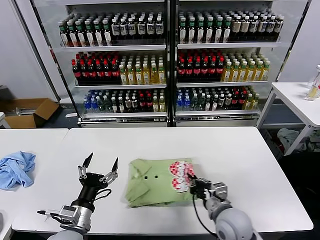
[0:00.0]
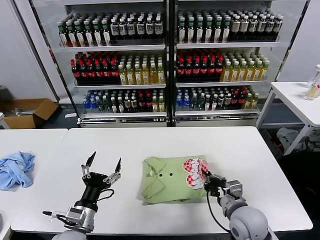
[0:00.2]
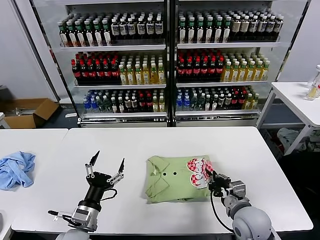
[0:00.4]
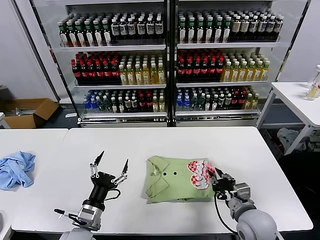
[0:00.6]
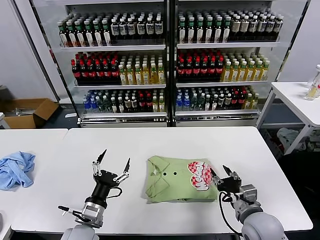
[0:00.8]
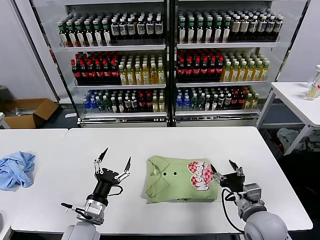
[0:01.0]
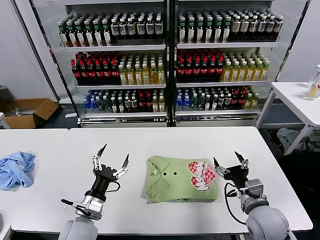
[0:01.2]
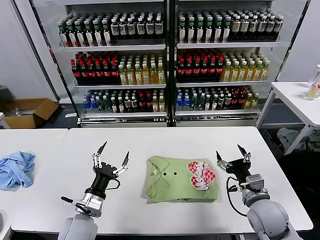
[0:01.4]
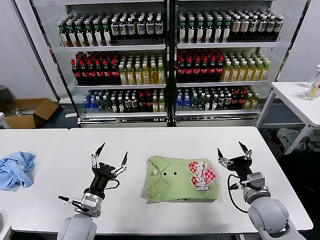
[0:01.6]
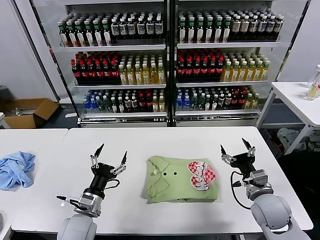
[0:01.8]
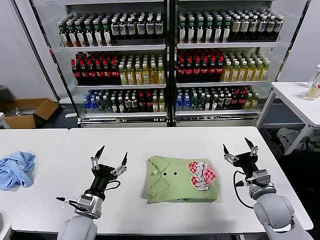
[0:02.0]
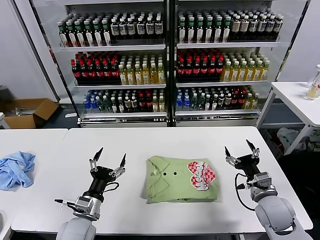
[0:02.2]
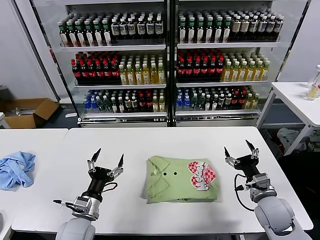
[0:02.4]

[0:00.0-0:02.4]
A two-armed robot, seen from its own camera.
Task of the whole recording: fold and organize the clothes.
0:00.0 to 0:01.2: The left gripper ends up roughly 5 cm from where it was. Meanwhile the right gripper heads to the right, covering roughly 10 cm, and opens.
0:01.2 to 0:02.4: The right gripper moves about 5 cm.

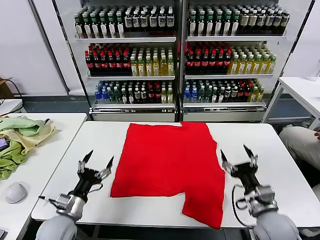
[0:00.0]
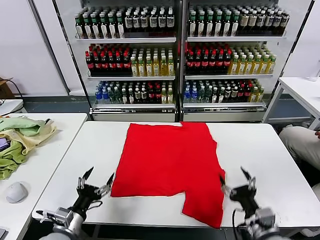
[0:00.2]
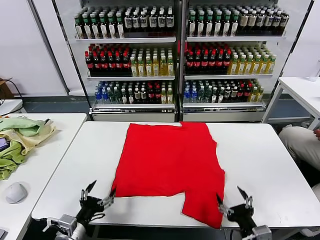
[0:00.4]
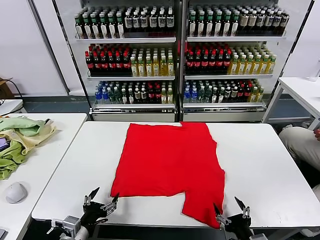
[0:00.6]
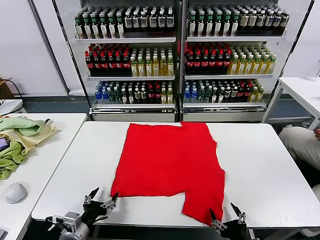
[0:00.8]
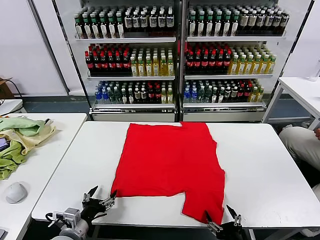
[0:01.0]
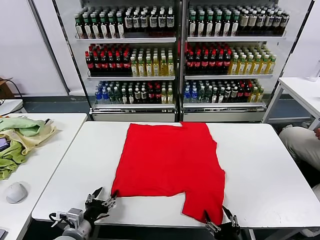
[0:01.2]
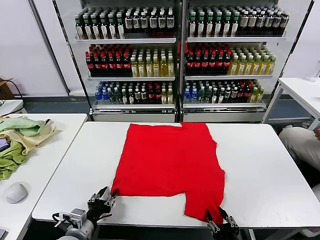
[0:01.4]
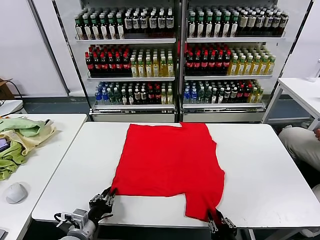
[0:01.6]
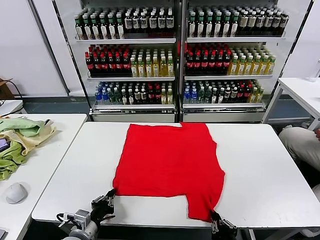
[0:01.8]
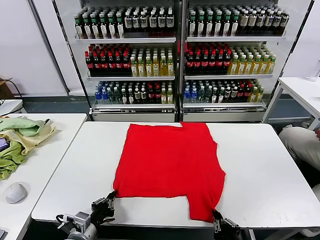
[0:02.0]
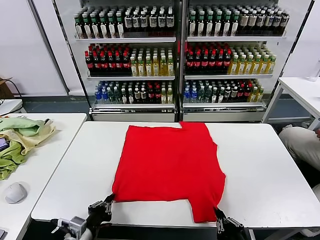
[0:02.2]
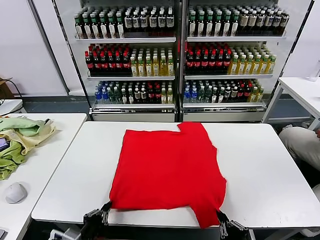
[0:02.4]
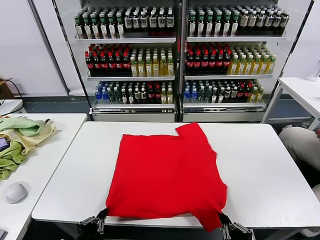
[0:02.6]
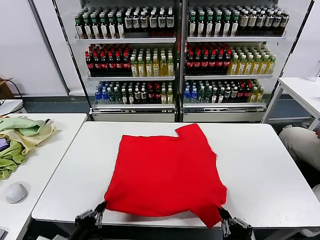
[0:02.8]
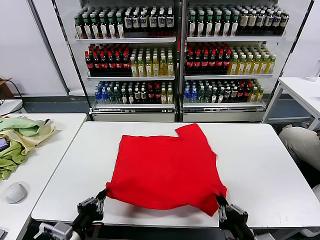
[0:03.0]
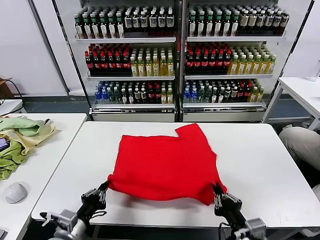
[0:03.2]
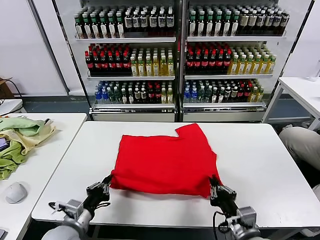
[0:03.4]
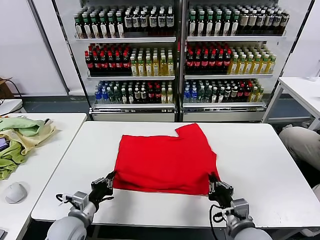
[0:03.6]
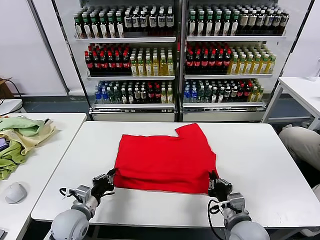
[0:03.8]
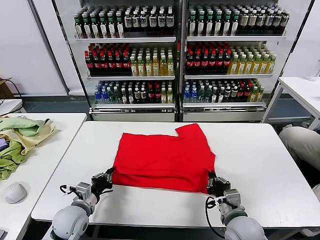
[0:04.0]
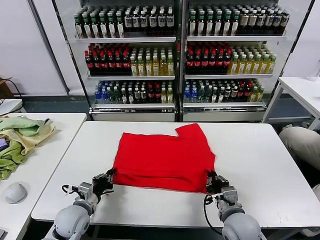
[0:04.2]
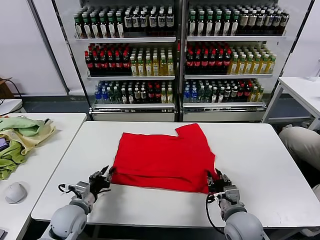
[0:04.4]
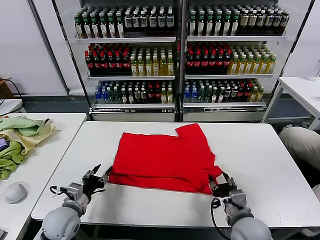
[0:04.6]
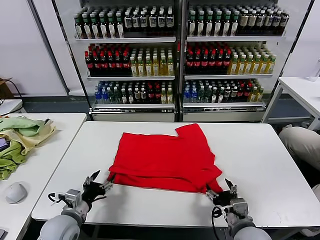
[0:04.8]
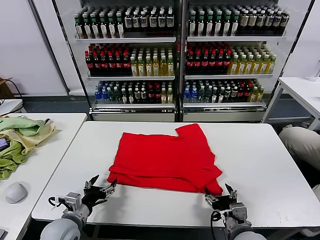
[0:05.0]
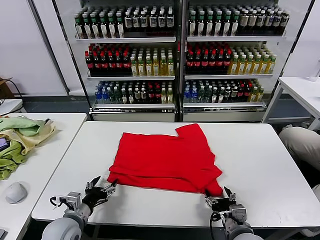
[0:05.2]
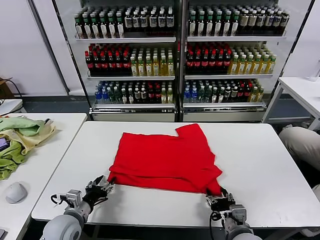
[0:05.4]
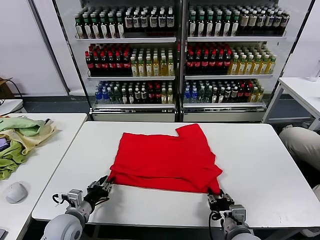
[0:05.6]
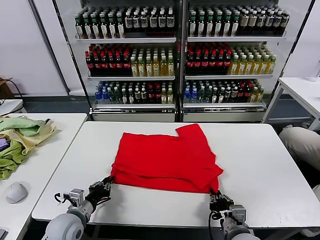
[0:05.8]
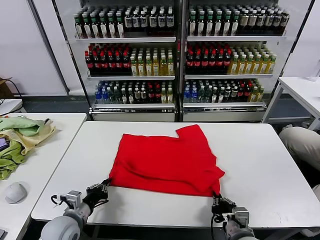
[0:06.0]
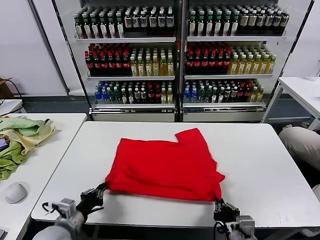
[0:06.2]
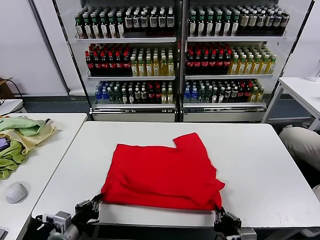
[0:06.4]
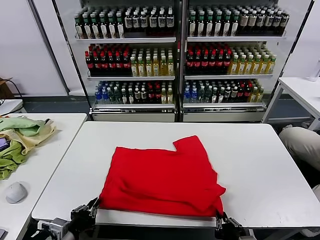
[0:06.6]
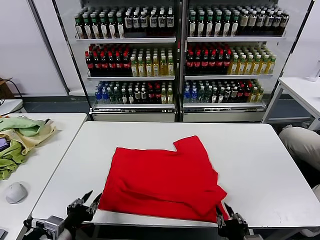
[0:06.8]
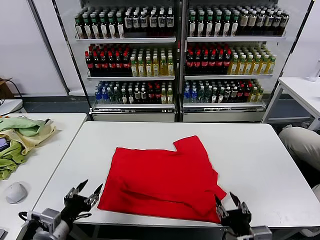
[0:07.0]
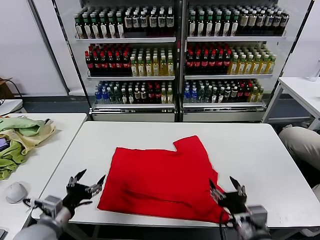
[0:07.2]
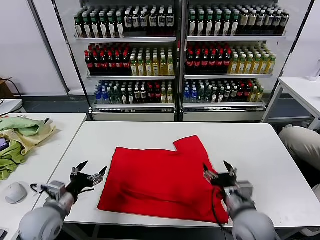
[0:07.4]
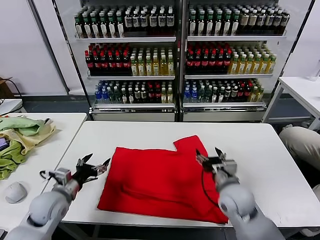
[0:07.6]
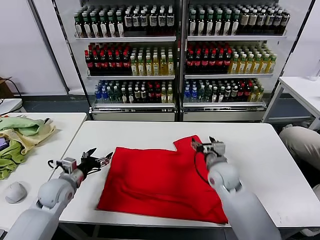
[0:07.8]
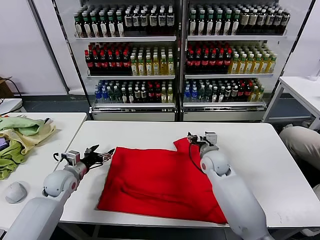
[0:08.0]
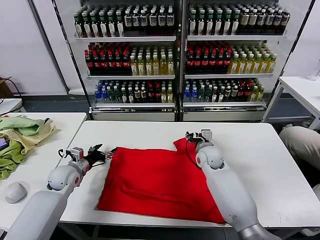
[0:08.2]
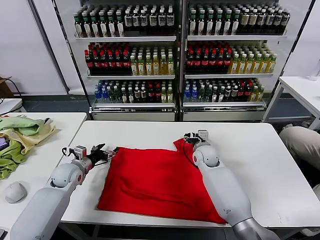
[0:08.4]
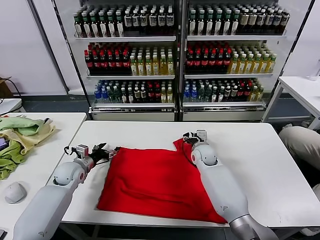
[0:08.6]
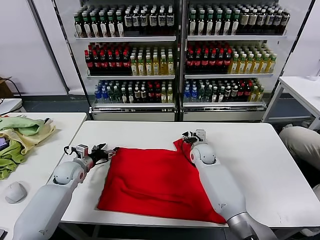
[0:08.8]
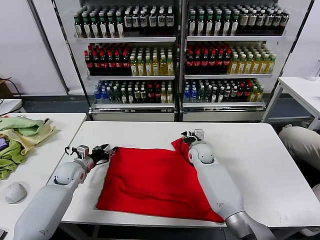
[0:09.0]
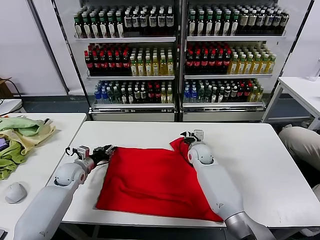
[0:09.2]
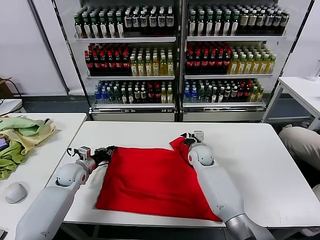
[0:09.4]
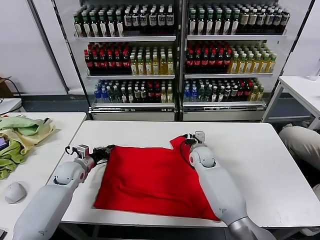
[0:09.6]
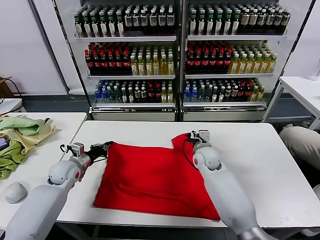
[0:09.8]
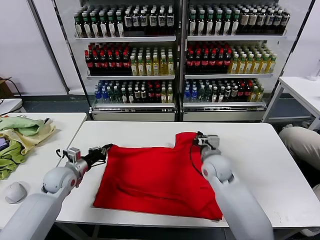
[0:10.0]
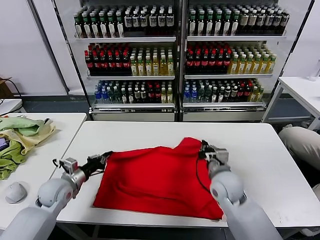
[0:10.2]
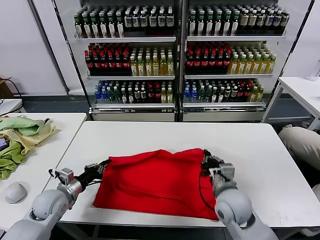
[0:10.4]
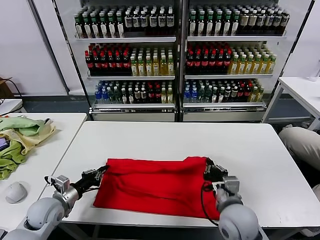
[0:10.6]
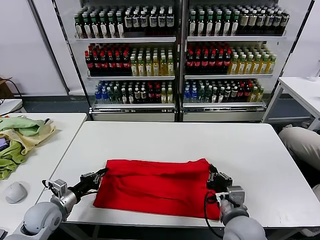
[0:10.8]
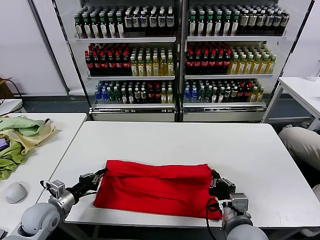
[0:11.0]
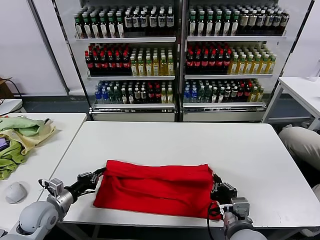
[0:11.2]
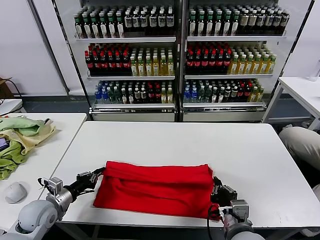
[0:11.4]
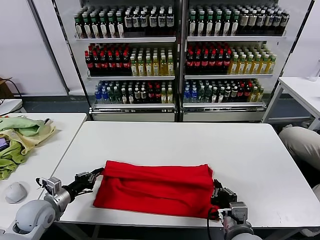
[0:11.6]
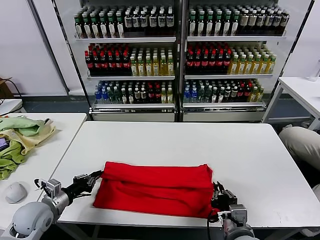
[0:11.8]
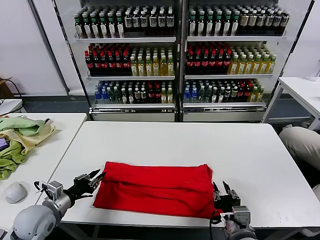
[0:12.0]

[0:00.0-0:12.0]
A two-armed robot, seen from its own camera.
Task of the whole recording: fold and organize the clothes.
Step, 0:00.0 to 0:01.8: use both grippers simultaneously to clamp the lower edge of the clothing fabric.
Step, 0:02.2 to 0:04.4: use both grippers to drag the lower edge of the fabric forward and fold it over the upper edge.
Step, 0:04.8 to 0:06.8: Drag the clothes downward with both gripper.
Step, 0:07.0 to 0:09.4: use both grippers simultaneously to clamp the upper edge of the clothing fabric.
Step, 0:09.6 to 0:11.8: use both grippers to drag the upper edge of the fabric backward and fold it over the lower edge.
0:01.6 to 0:03.0: Both grippers move upward, some 5 cm.
0:03.0 to 0:04.4: The left gripper moves forward and downward, approximately 15 cm, and opens. The right gripper is displaced forward by approximately 10 cm, and opens up.
0:04.4 to 0:06.0: The right gripper travels backward by some 5 cm, and closes up. The left gripper closes its fingers.
0:06.0 to 0:07.6: The right gripper is displaced forward by approximately 20 cm, and opens up, while the left gripper travels forward by some 10 cm, and opens.
0:07.6 to 0:09.0: The two grippers go some 15 cm forward. The right gripper closes up. Meanwhile the left gripper closes up.
0:09.0 to 0:10.4: The right gripper goes some 25 cm backward, and closes its fingers, while the left gripper goes some 10 cm backward, and closes.
0:10.4 to 0:12.0: The left gripper goes some 5 cm backward, and opens its fingers, while the right gripper is displaced backward by roughly 10 cm, and opens up.

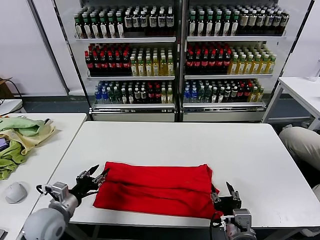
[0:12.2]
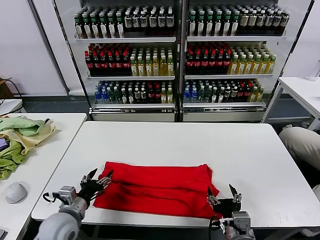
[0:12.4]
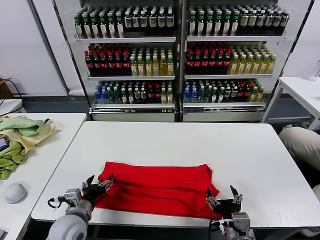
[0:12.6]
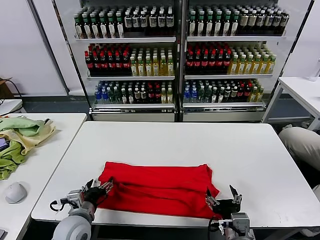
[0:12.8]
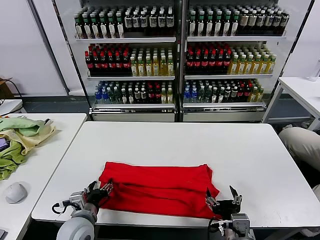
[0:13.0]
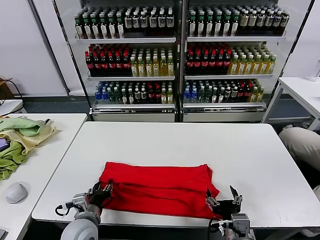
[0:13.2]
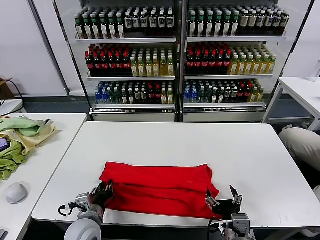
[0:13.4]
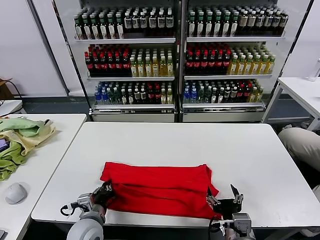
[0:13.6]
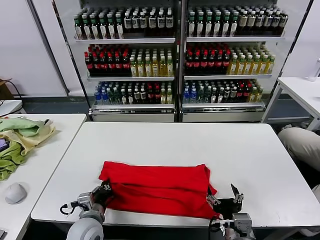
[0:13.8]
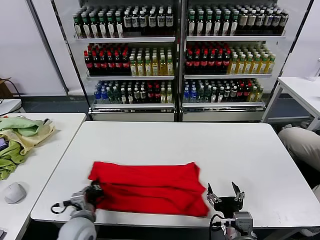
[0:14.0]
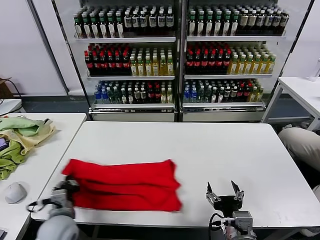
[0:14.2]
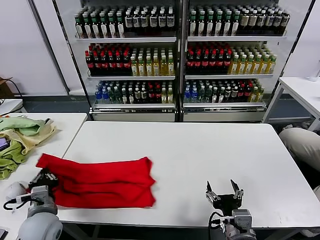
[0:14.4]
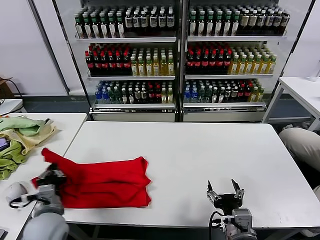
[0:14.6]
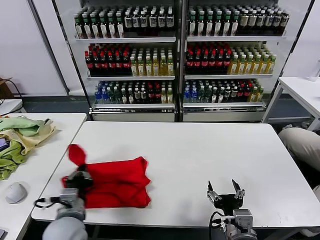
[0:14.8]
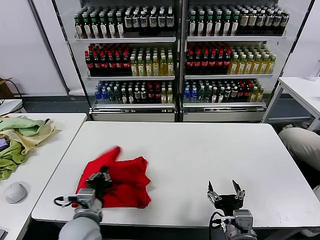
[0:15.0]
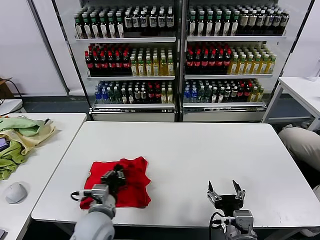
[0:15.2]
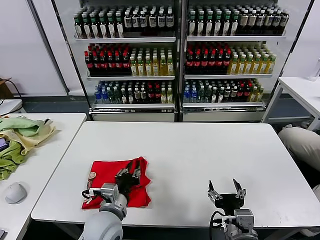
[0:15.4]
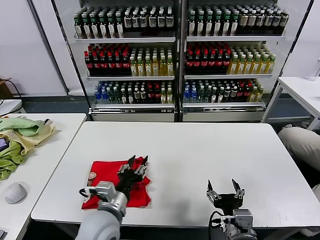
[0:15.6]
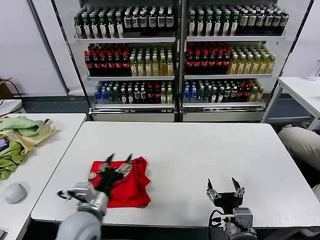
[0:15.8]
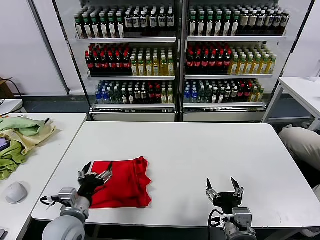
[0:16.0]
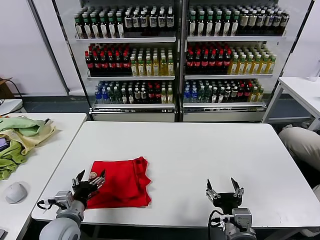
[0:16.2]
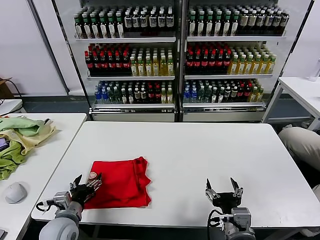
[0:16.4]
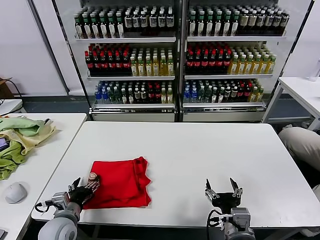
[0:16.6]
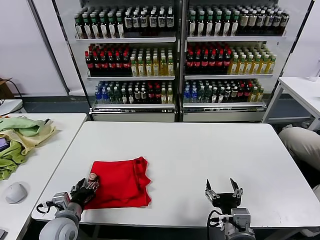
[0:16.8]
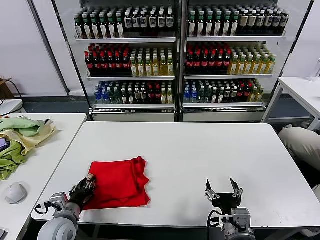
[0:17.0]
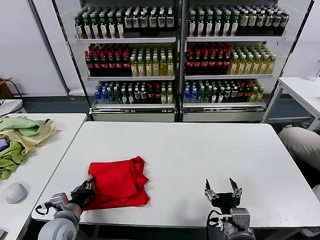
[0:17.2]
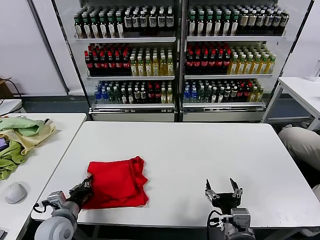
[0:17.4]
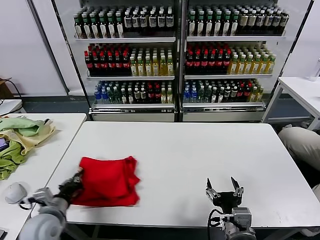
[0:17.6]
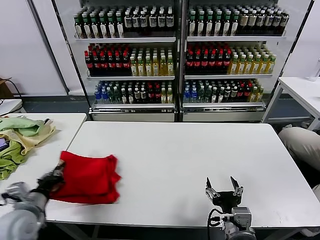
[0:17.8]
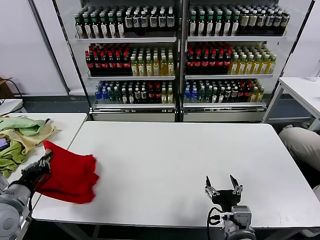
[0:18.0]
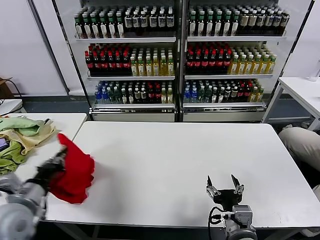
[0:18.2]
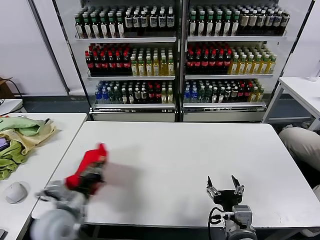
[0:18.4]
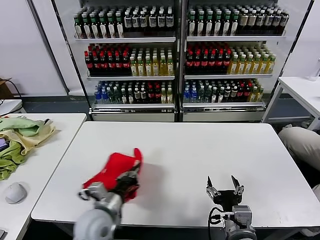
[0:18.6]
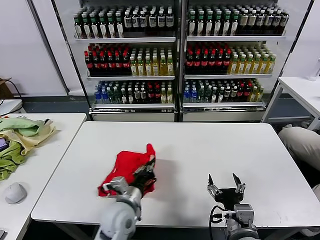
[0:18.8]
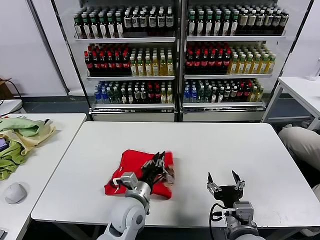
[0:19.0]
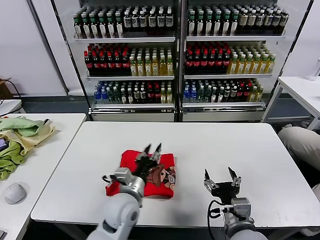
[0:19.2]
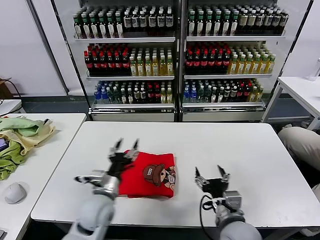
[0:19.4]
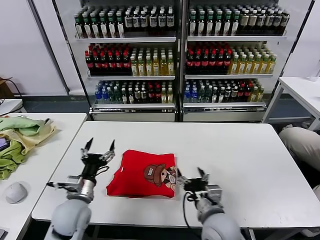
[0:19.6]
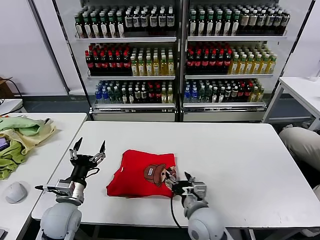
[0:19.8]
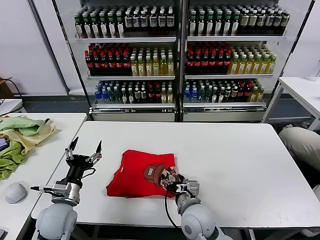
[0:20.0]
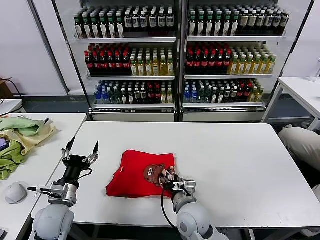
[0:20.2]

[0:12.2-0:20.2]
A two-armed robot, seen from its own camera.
Task of the whole recording: fold and organize the clothes.
Step, 0:12.2 to 0:13.6: use the left gripper to clamp the left edge of the fabric.
Step, 0:13.8 to 0:15.4: use the left gripper to drag the left edge of the fabric to the left and folds it over the right edge.
Step, 0:15.6 to 0:19.0: Flip the folded clothes over with left gripper.
0:12.2 to 0:13.8: The left gripper moves to the right, roughly 10 cm, and closes up.
0:13.8 to 0:15.4: The left gripper goes approximately 10 cm to the right and upward.
0:15.4 to 0:17.0: The left gripper goes roughly 15 cm to the left and downward, and opens, then closes again.
0:17.0 to 0:18.6: The left gripper heads to the right and upward, covering some 15 cm, and closes up.
0:18.6 to 0:20.2: The left gripper goes some 10 cm to the left, and opens its fingers, while the right gripper travels forward, to the left and downward by roughly 15 cm.
